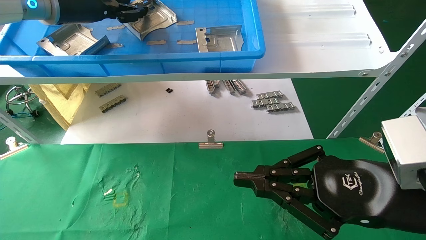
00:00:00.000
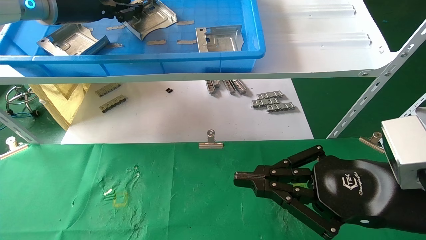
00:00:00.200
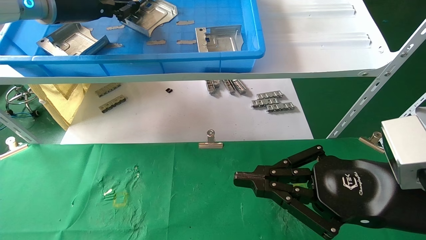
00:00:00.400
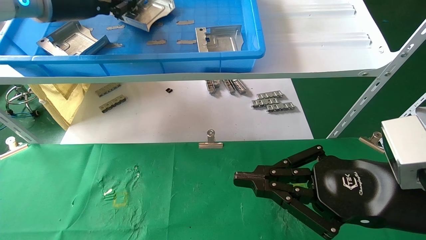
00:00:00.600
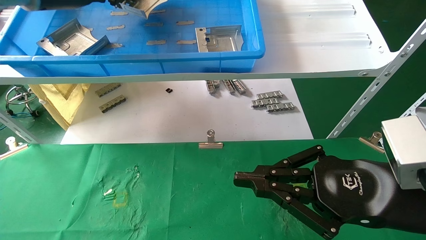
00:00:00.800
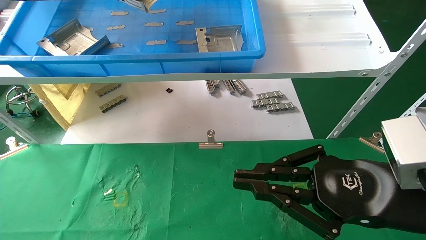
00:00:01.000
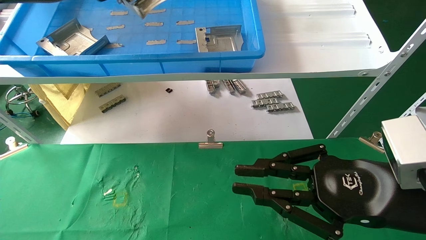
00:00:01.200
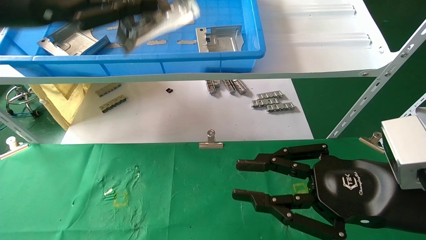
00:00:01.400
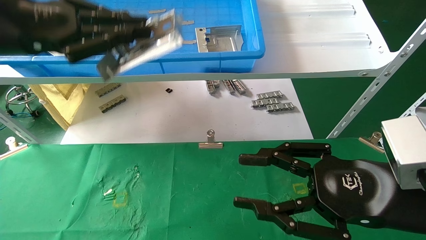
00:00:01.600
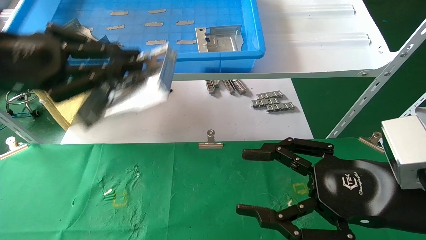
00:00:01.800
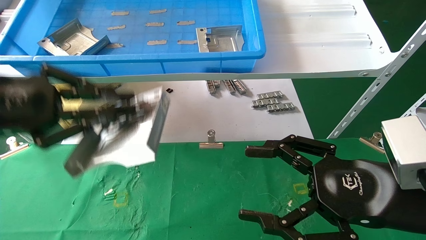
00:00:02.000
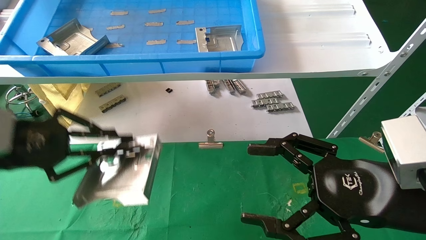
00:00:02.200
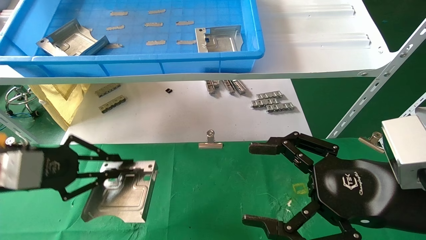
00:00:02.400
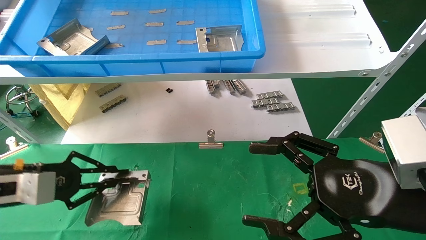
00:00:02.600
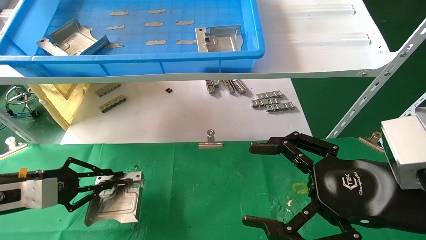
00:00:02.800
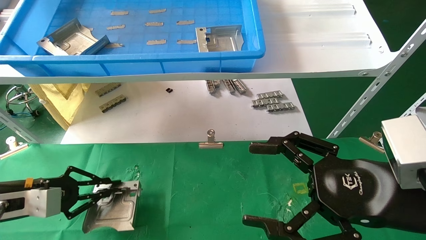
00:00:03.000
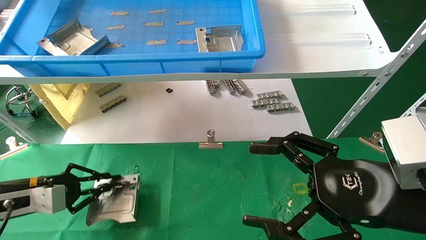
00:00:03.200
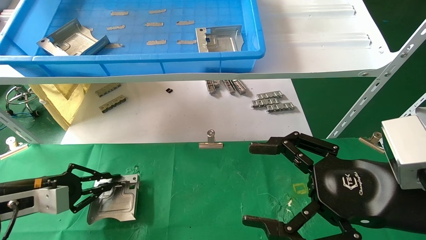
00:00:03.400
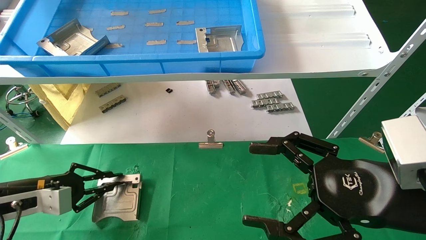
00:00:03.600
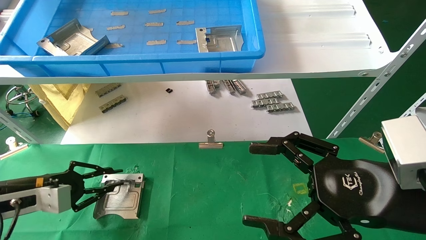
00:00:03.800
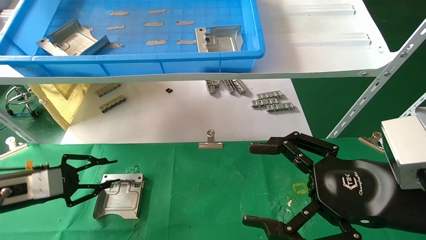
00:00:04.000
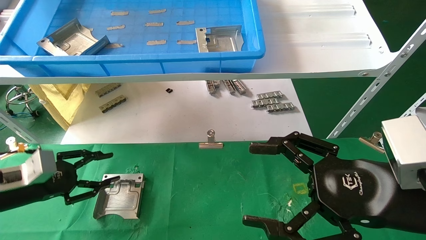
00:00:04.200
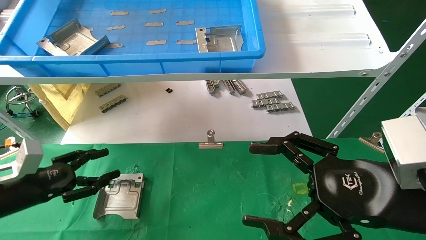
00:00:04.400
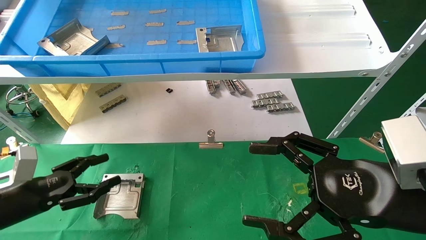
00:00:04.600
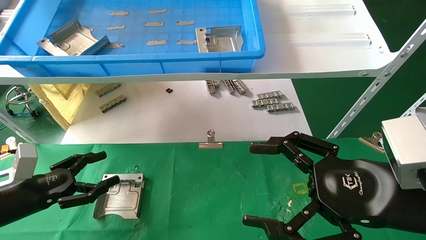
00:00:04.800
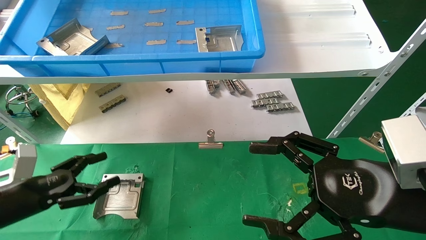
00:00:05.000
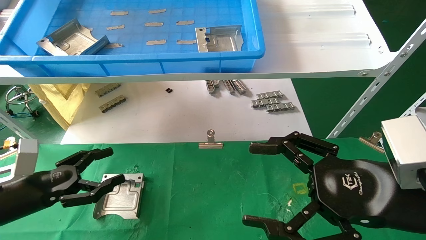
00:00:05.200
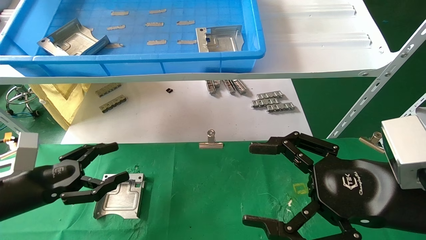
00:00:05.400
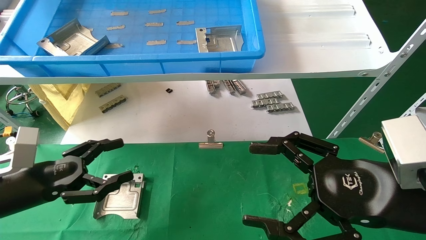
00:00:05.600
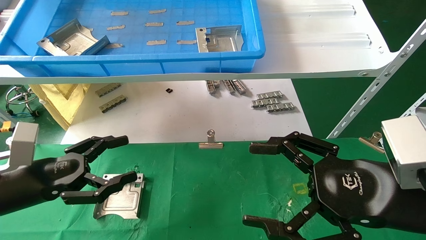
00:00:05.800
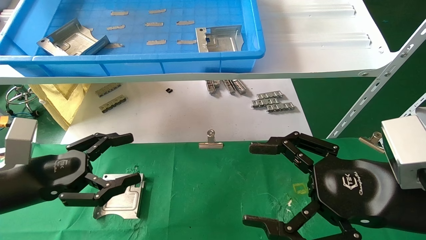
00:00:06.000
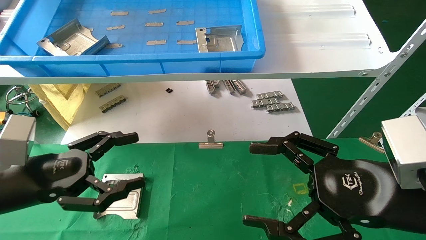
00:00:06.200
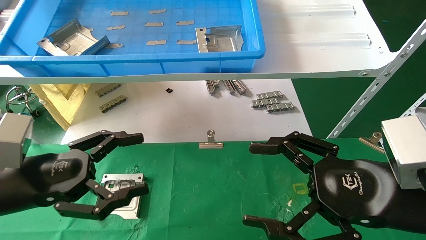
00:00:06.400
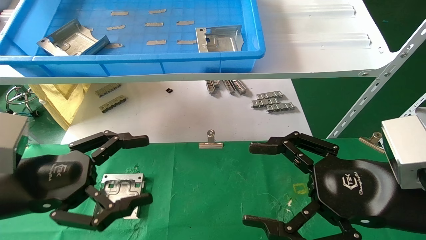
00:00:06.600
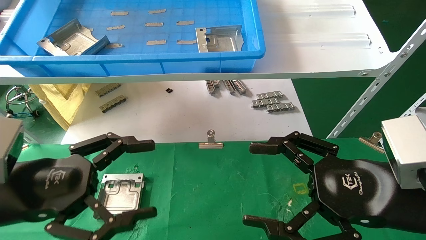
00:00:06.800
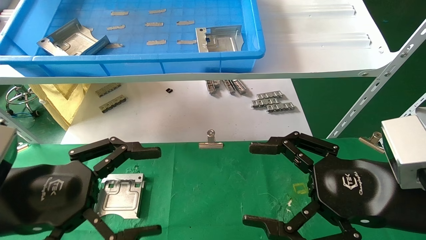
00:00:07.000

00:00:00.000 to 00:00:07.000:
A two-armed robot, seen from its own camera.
Task of the whole recording: use the mechanical arm to pick up the parts and place them on the table.
Step, 00:00:00.600 to 00:00:04.000: Place the hard drive bracket into the box.
00:00:00.000 to 00:00:01.400: The left gripper moves backward, some 10 cm, and closes its fingers.
00:00:01.400 to 00:00:02.800: The left gripper shifts approximately 30 cm downward, while the right gripper opens.
00:00:04.200 to 00:00:05.600: The left gripper shifts by some 5 cm, and opens its fingers.
00:00:05.600 to 00:00:07.000: The left gripper moves backward, to the right and upward, approximately 15 cm.

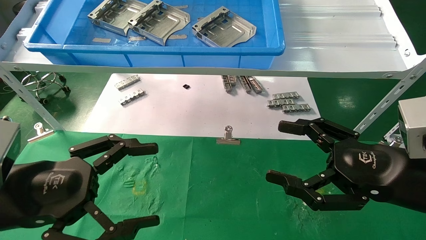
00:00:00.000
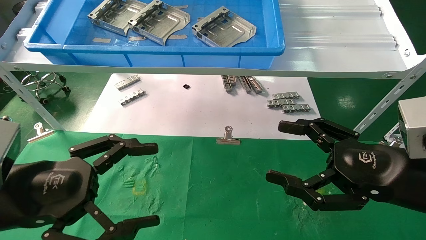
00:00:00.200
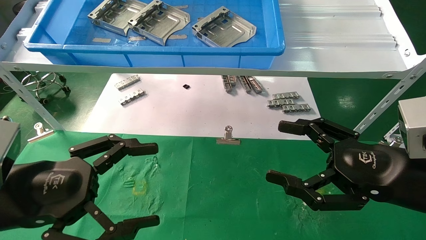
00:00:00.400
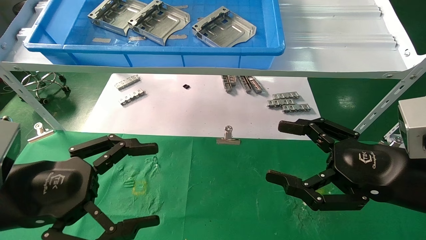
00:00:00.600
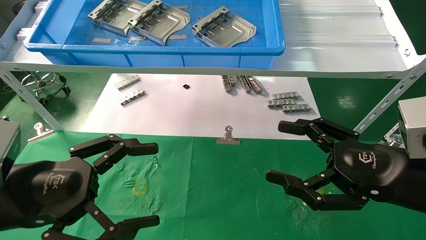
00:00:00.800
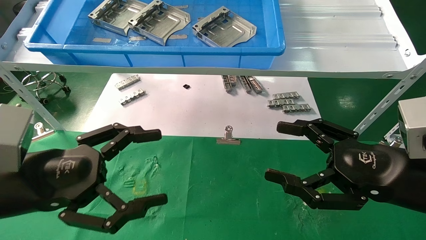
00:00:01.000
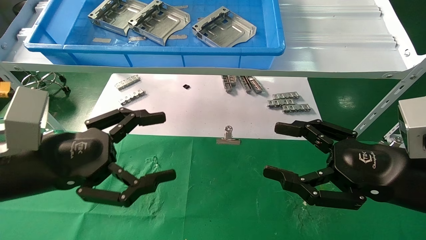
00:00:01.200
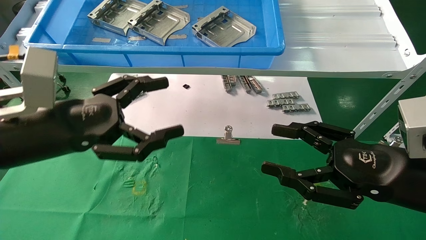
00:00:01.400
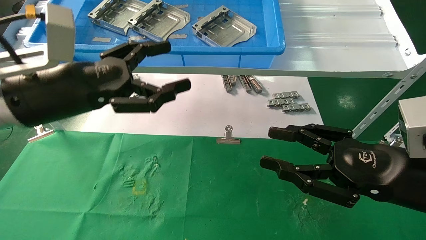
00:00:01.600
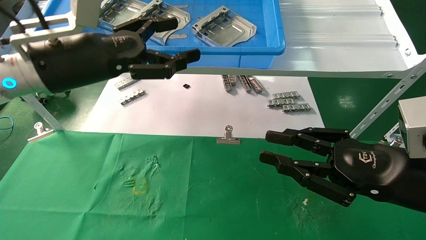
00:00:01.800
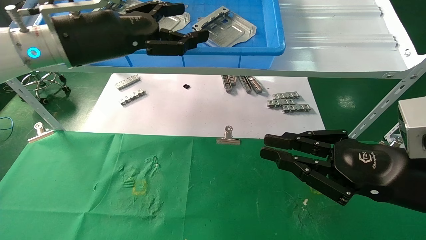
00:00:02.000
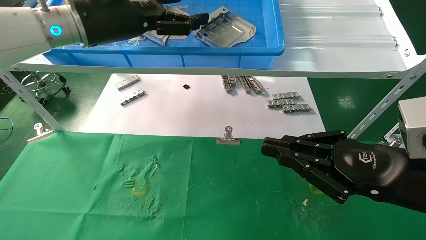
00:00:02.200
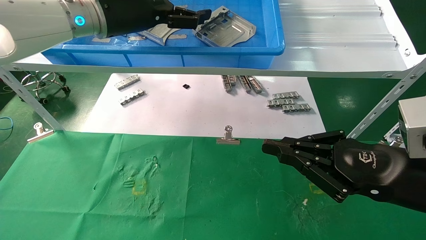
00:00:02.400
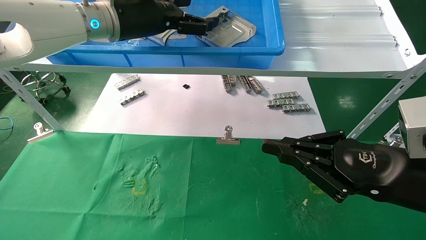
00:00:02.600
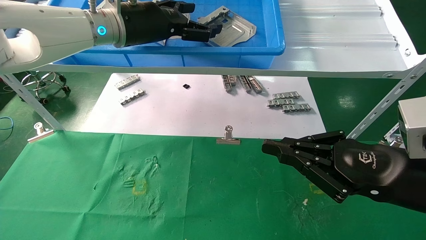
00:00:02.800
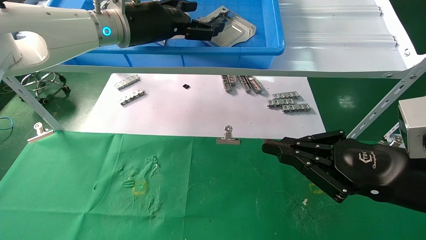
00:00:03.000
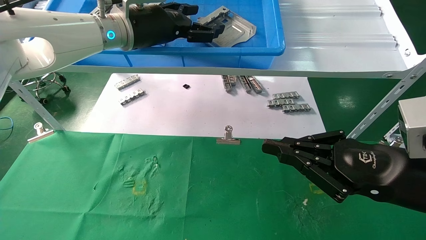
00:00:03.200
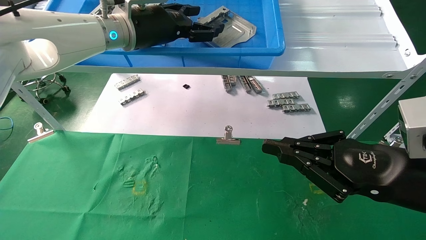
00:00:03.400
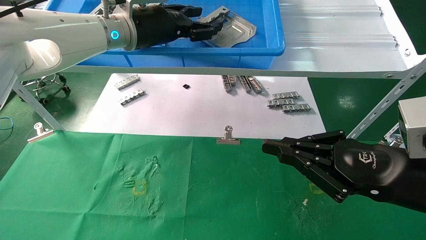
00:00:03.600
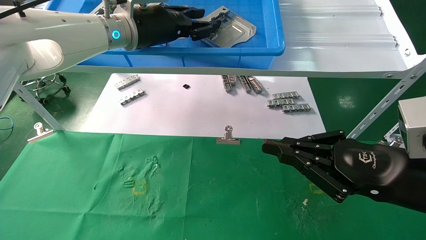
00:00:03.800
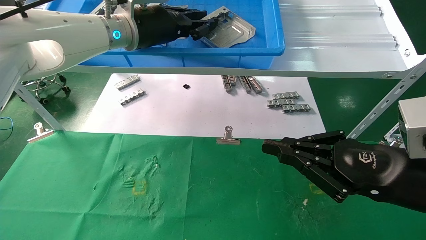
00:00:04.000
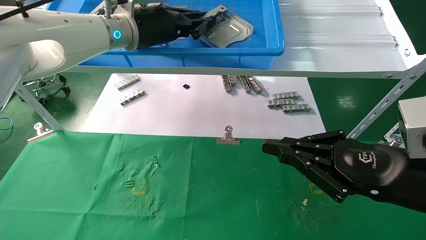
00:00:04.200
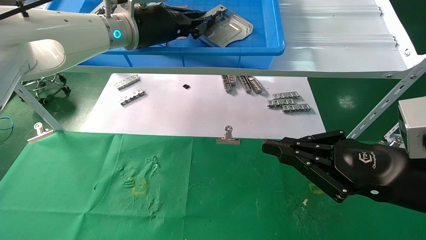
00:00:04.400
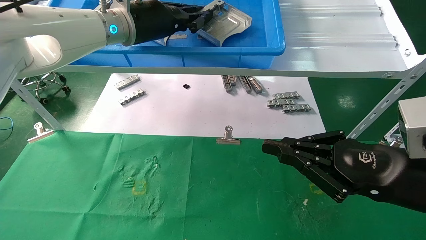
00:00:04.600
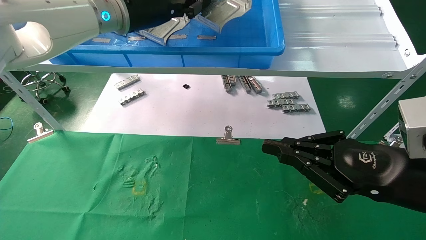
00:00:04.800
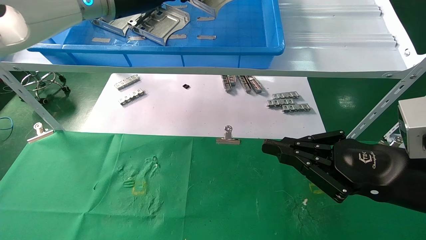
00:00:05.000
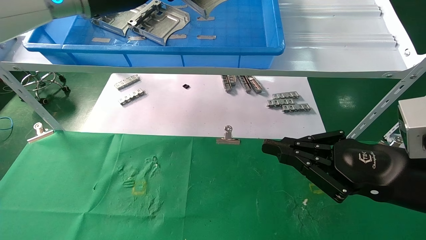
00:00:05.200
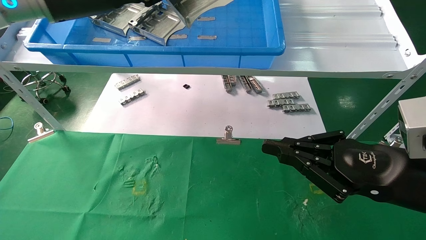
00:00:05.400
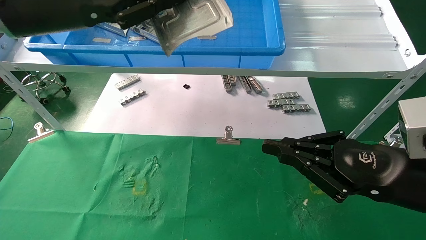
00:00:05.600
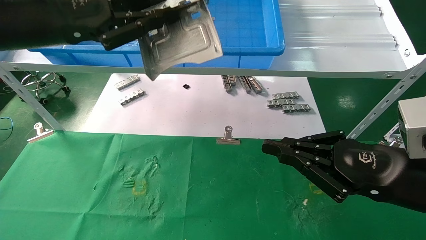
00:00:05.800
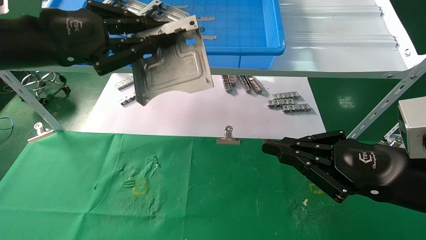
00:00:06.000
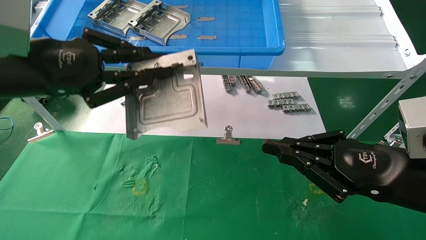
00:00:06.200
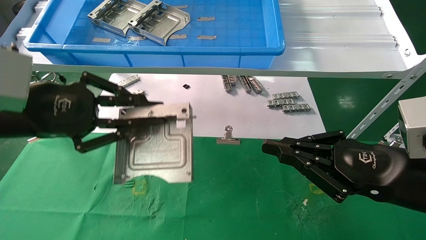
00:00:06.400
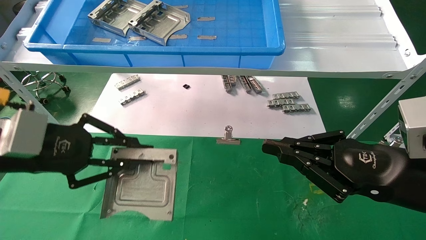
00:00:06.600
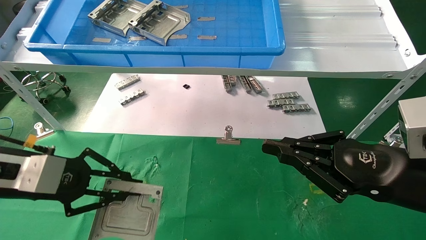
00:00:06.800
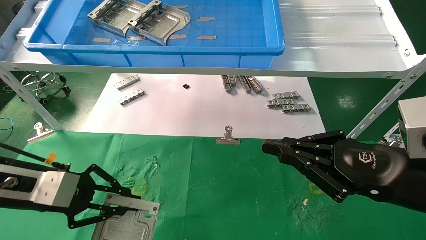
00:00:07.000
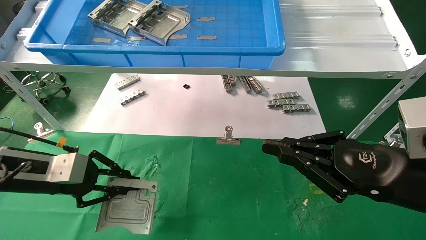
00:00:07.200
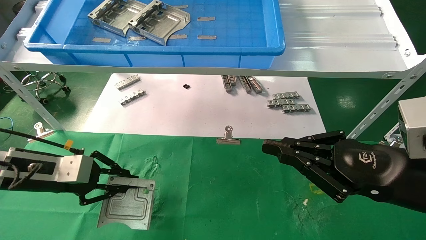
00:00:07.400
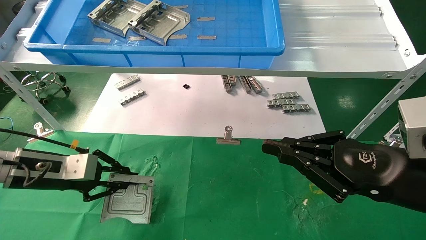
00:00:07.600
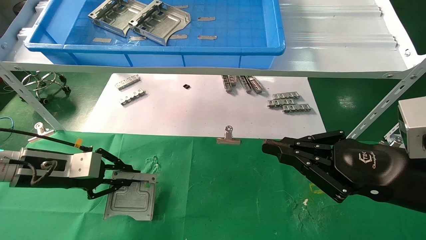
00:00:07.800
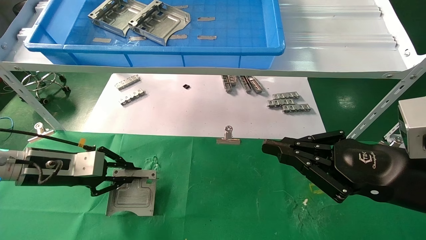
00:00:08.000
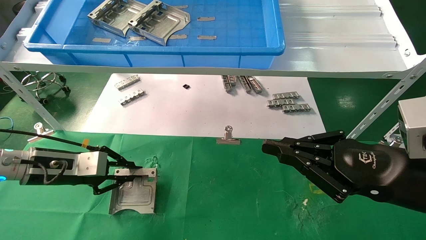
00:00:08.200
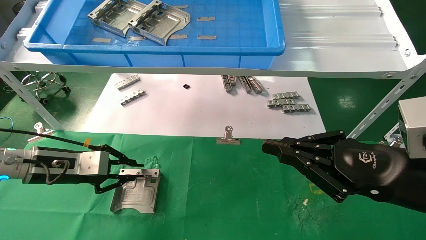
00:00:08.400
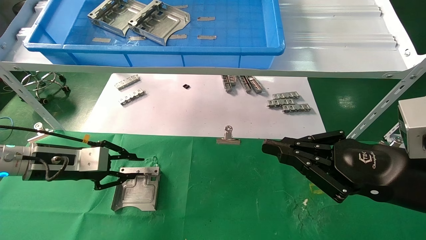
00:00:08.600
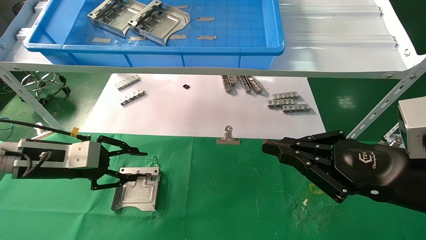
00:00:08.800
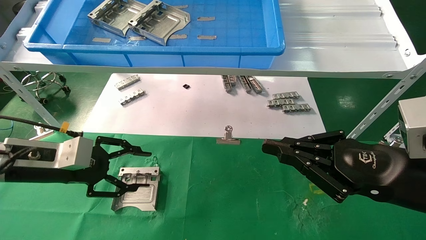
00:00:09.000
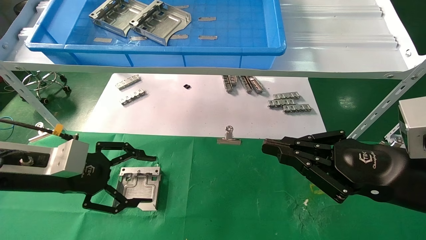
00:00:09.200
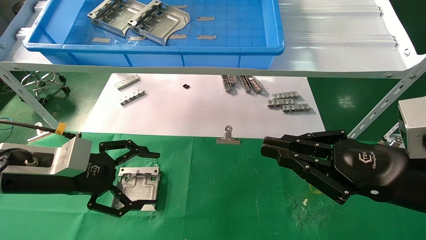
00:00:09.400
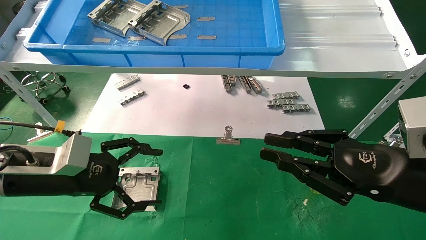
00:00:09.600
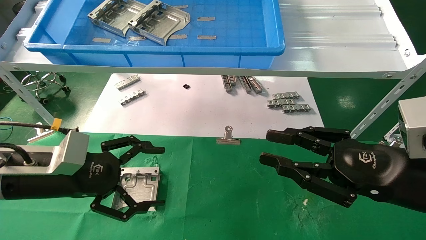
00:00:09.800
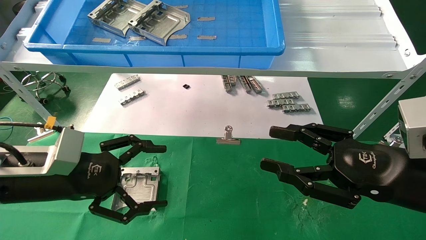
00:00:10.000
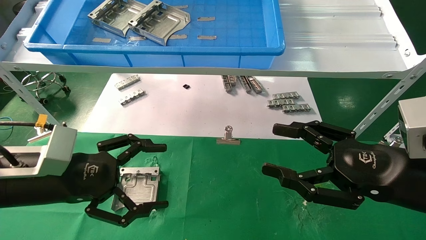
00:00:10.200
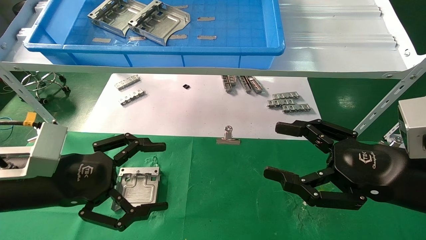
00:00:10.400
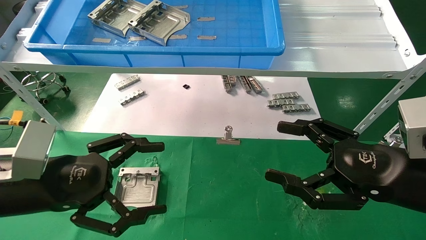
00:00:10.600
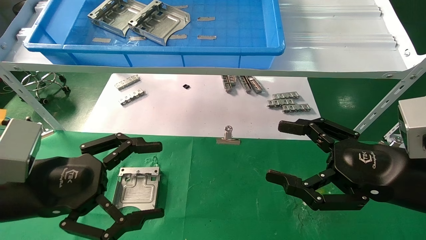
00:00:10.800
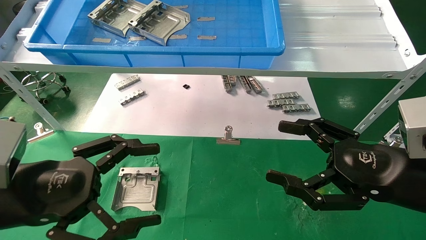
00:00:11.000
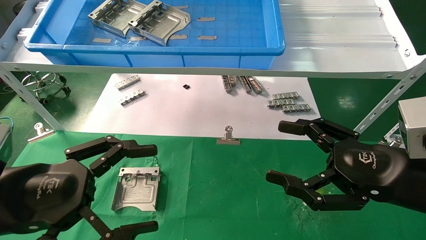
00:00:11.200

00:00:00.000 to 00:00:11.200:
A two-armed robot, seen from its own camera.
Task of the whole recording: use the mechanical arm to pick up the parts and place them on the table.
Step, 00:00:01.200 to 00:00:04.200: Pick up the hard drive bracket from the feeding area.
Step, 00:00:04.400 to 00:00:08.400: Place the hard drive bracket into the box.
00:00:00.000 to 00:00:01.600: The right gripper closes up. The left gripper is displaced forward and upward by roughly 15 cm.
00:00:01.600 to 00:00:03.200: The left gripper is displaced forward, to the right and upward by about 20 cm, while the right gripper closes up.
00:00:03.200 to 00:00:04.800: The left gripper closes its fingers.
00:00:04.800 to 00:00:06.400: The left gripper is displaced backward, to the left and downward by about 25 cm.
00:00:06.400 to 00:00:08.000: The left gripper travels downward and forward by approximately 15 cm.
00:00:08.000 to 00:00:09.600: The left gripper shifts roughly 5 cm backward, and opens up.
00:00:09.600 to 00:00:11.200: The left gripper shifts about 10 cm backward. Meanwhile the right gripper opens.
